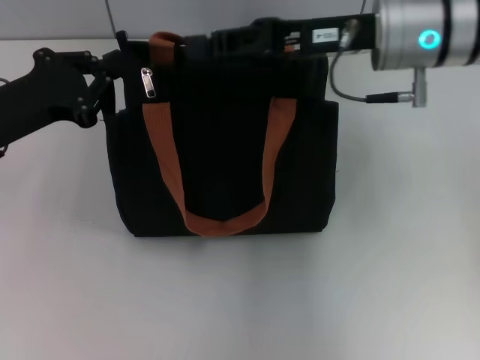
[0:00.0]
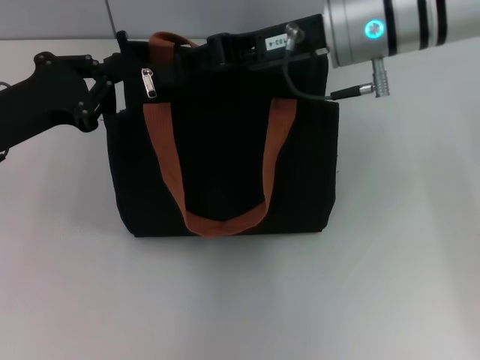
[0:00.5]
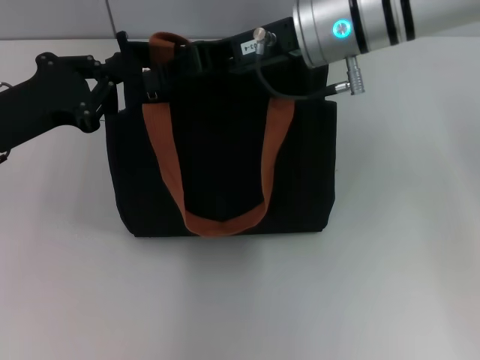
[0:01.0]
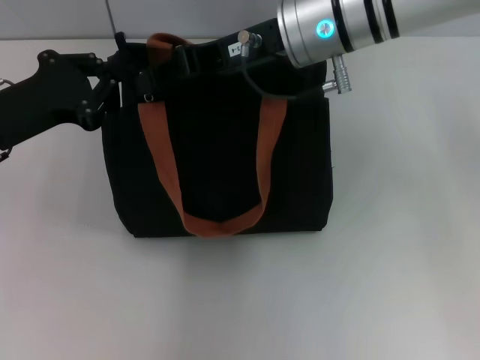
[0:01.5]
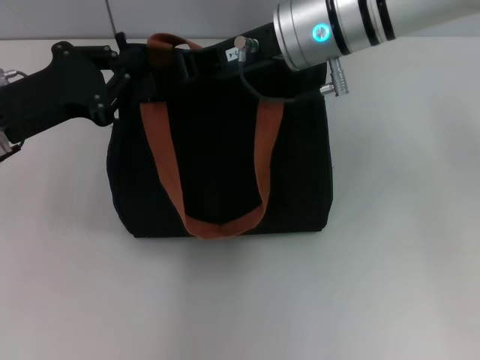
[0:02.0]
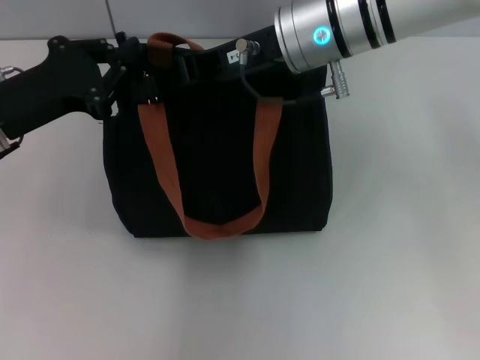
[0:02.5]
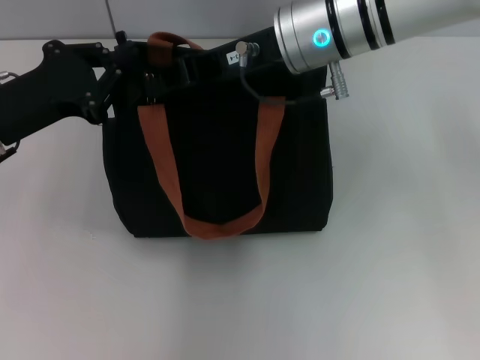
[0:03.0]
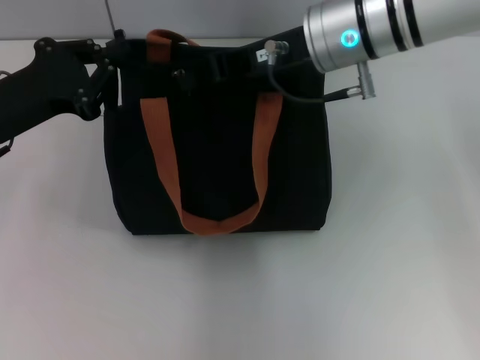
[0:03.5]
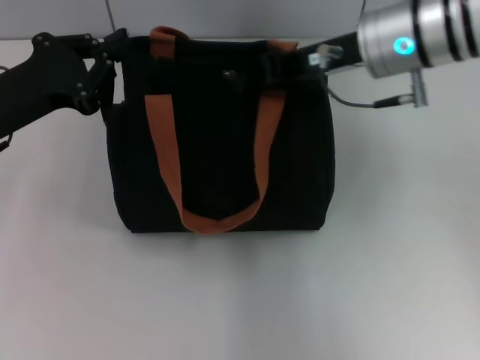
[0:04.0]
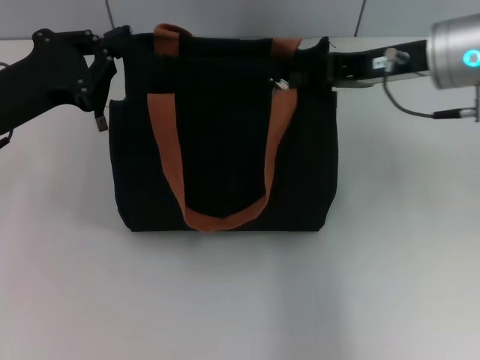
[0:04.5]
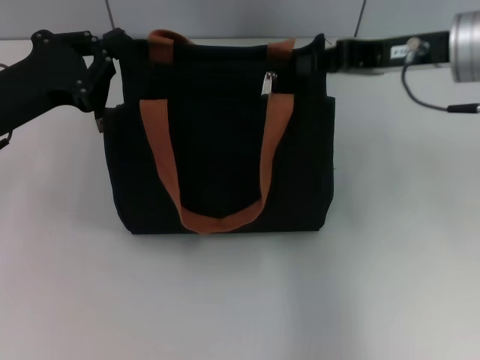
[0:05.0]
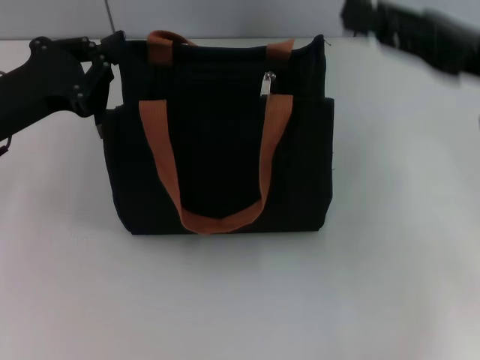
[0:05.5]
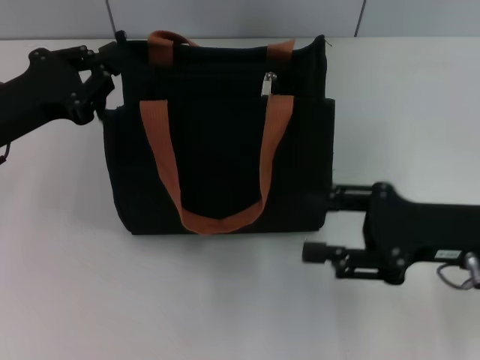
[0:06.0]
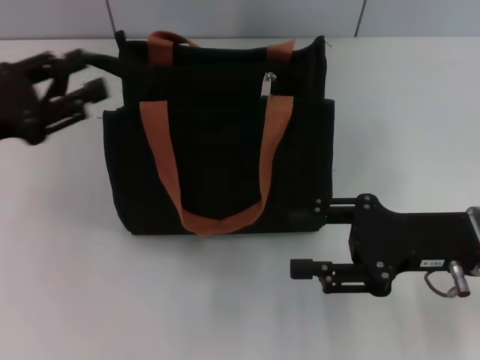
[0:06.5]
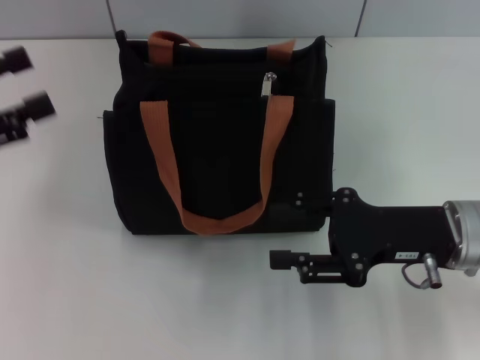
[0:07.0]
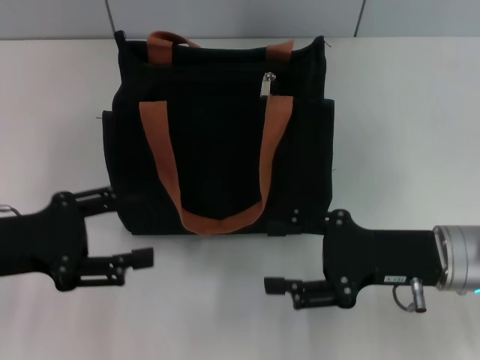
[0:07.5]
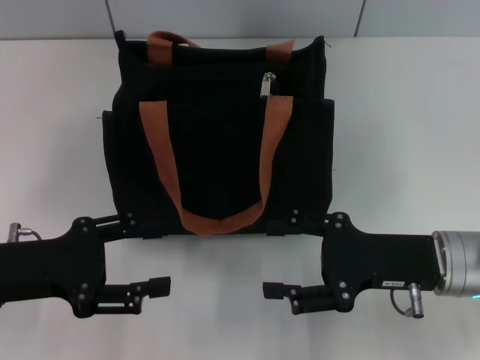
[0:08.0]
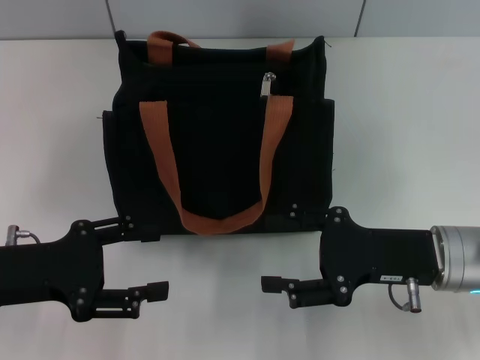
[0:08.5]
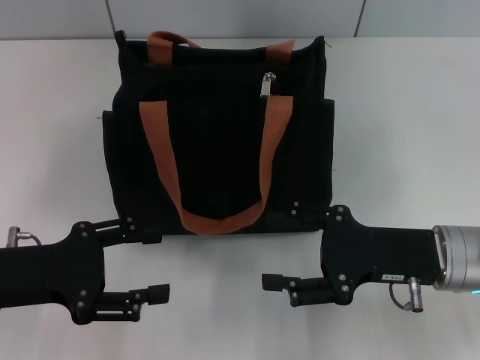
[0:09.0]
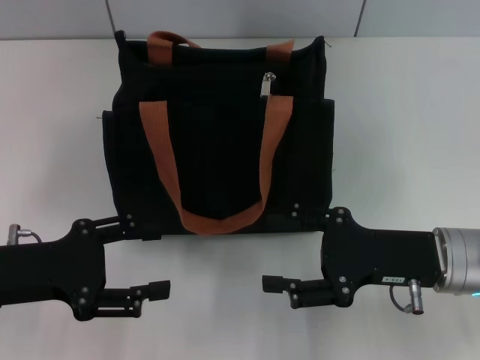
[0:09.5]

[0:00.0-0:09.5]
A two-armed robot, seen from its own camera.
Step, 0:00.0 to 0:04.5: Pull up the zipper with your right hand.
Step, 0:05.0 to 0:06.5: Grab the zipper with your left hand.
0:00.0 to 0:02.0: The right gripper shifts roughly 5 cm to the left.
0:02.0 to 0:04.0: The right gripper moves to the right, about 5 cm.
0:04.0 to 0:05.5: The right gripper is displaced to the right and backward by about 15 cm, and opens.
0:05.5 to 0:07.5: The left gripper goes some 10 cm backward, and opens; the right gripper goes approximately 15 cm downward and backward, and opens its fingers.
0:07.5 to 0:09.5: There are only small adjustments of the grippers.

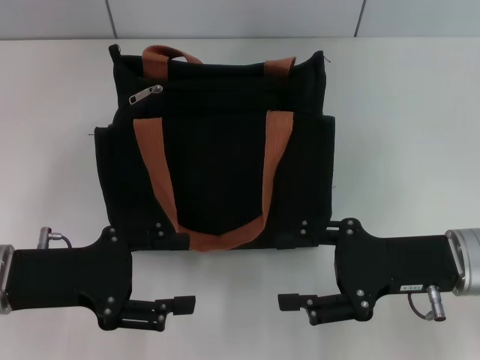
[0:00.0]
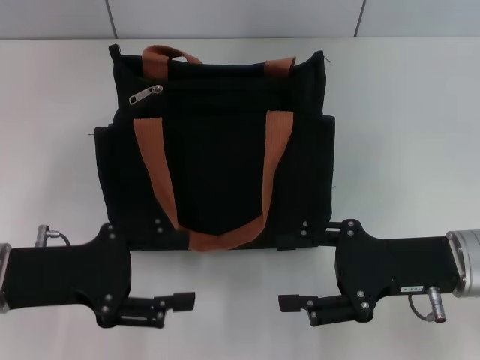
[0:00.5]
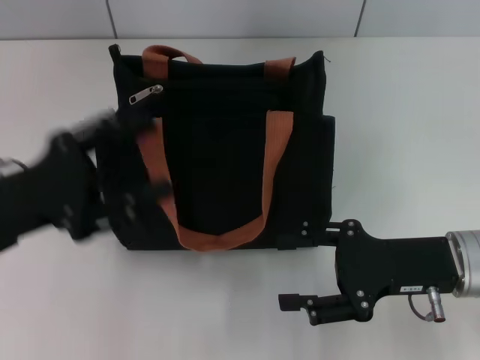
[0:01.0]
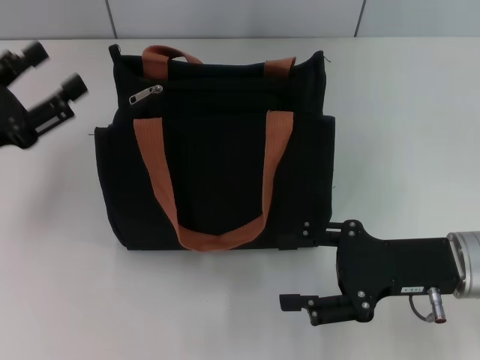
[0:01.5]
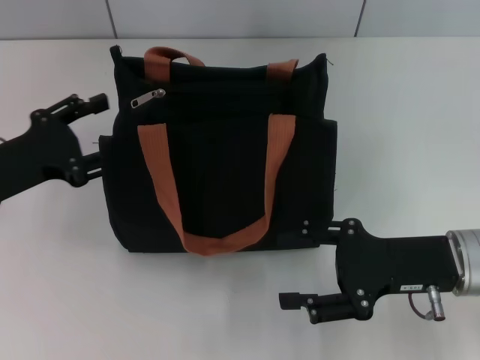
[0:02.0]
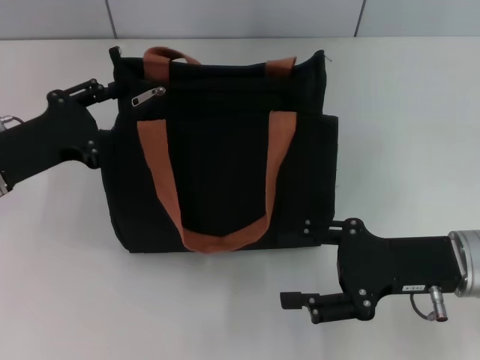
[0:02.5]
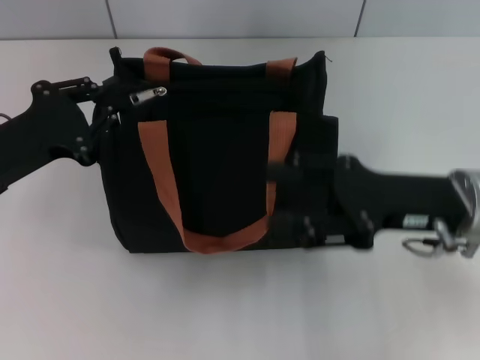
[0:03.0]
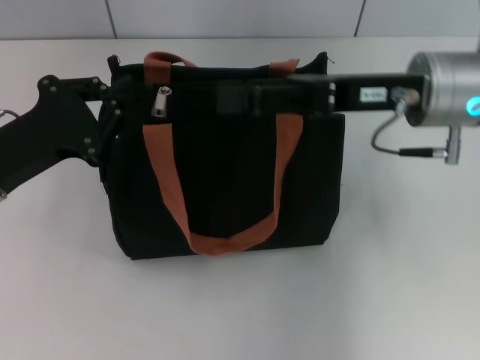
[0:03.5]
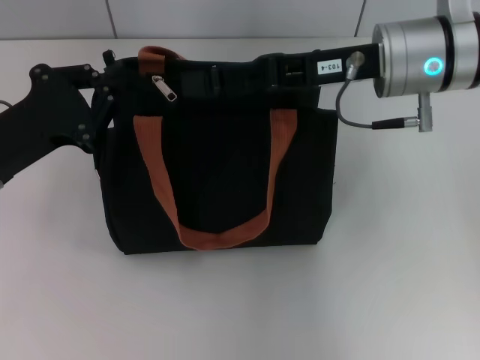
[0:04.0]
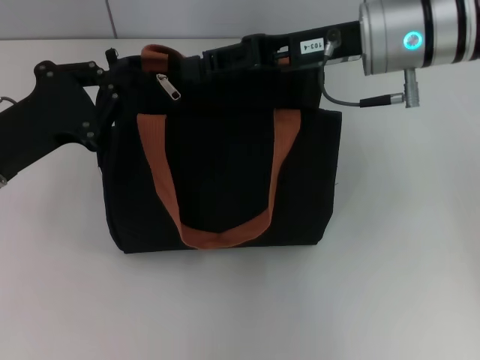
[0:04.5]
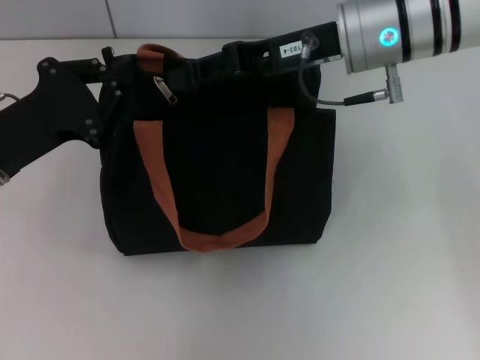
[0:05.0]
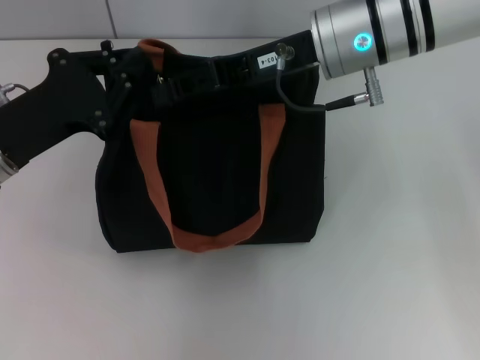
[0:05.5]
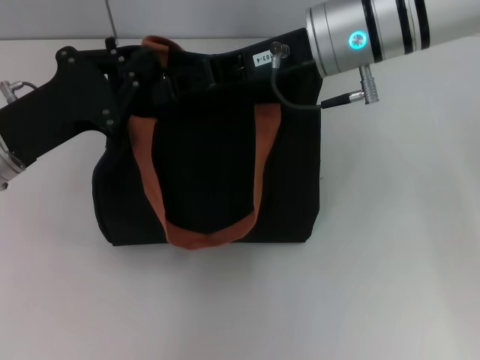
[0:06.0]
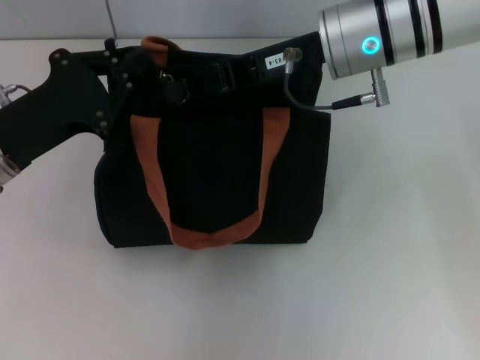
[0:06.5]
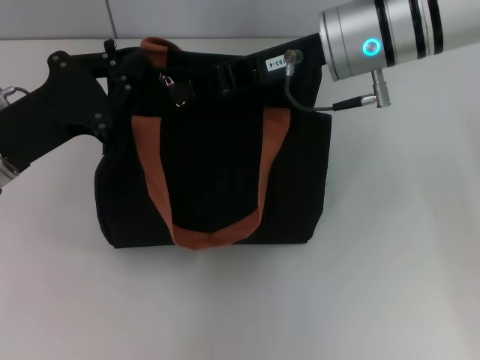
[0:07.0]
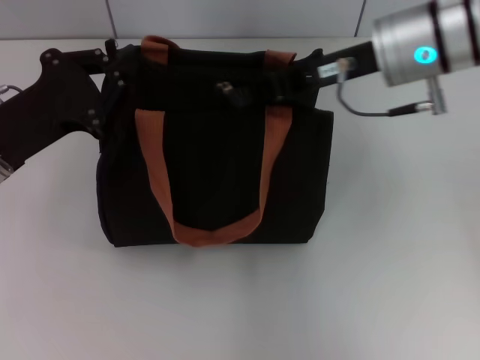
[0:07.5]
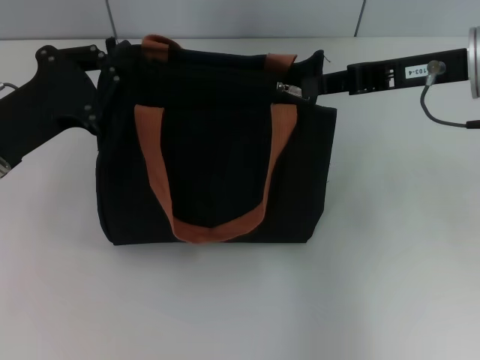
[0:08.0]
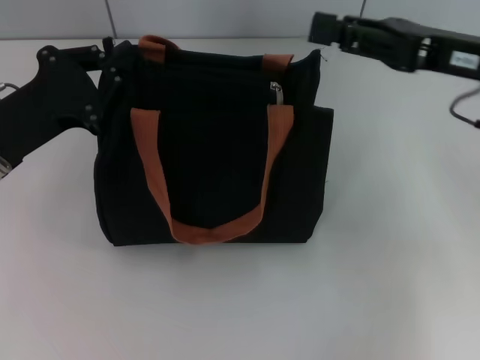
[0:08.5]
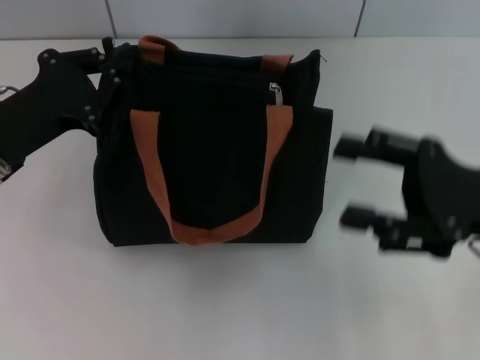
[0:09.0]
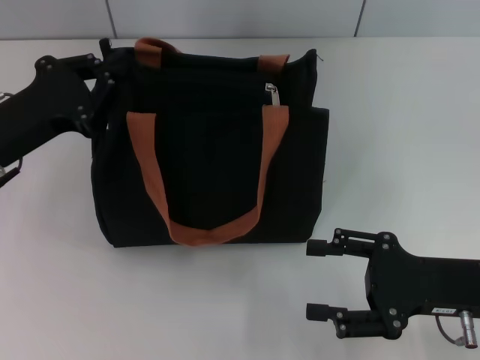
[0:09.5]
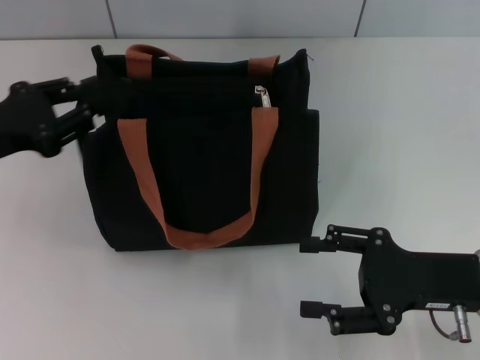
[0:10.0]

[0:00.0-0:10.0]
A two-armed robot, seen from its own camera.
Step, 0:00.0 to 0:08.0: Pull up the zipper with your right hand.
0:00.0 to 0:02.0: The left gripper goes roughly 5 cm forward.
0:02.0 to 0:04.0: The left gripper closes its fingers; the right gripper goes roughly 20 cm upward, forward and to the left.
0:04.0 to 0:06.0: The right gripper shifts roughly 5 cm to the left, and closes its fingers.
0:06.0 to 0:08.0: The right gripper shifts approximately 10 cm to the right.
0:08.0 to 0:10.0: The left gripper shifts by approximately 5 cm; the right gripper heads downward and backward, covering some 20 cm, and opens up.

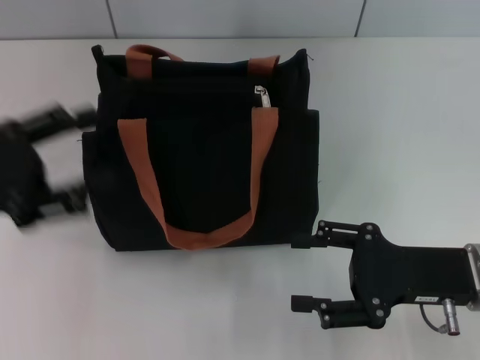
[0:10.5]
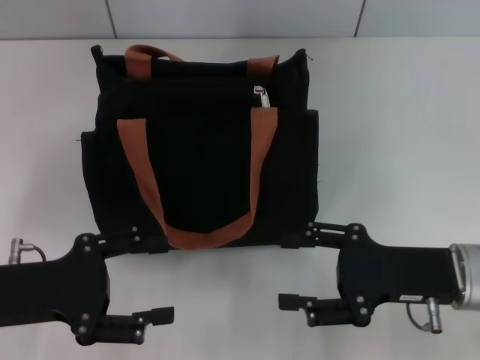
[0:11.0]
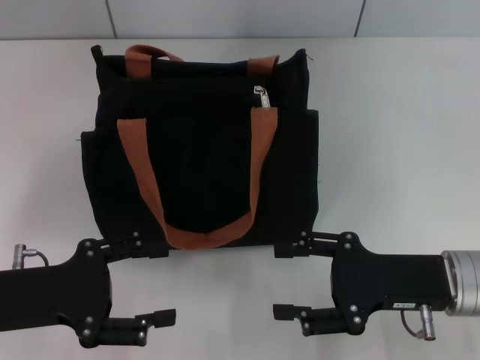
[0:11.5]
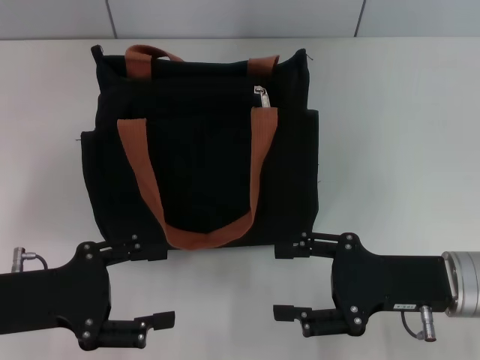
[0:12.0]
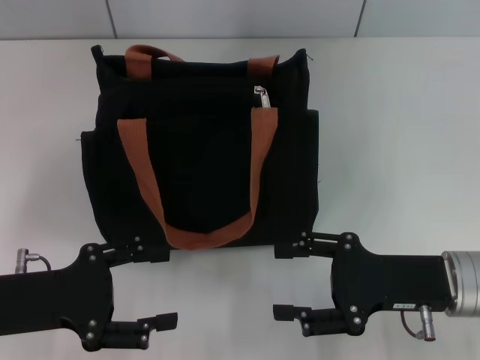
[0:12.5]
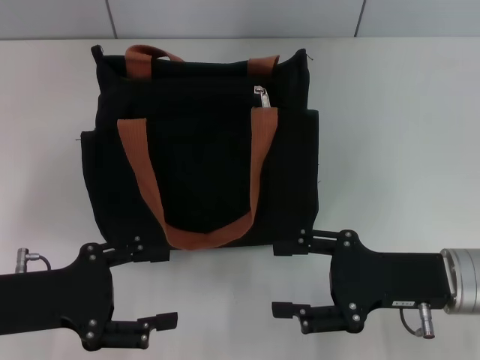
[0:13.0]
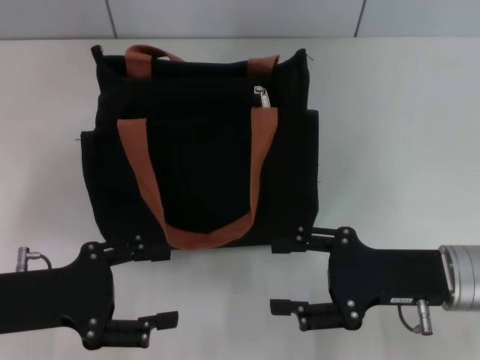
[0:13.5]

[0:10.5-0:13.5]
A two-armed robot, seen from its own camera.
0:10.5 to 0:12.0: The left gripper moves downward, approximately 5 cm.
0:12.0 to 0:13.5: Both grippers stay about where they are.

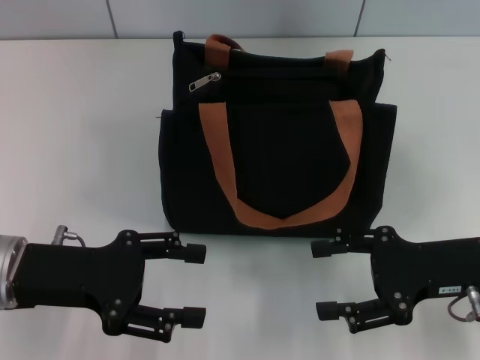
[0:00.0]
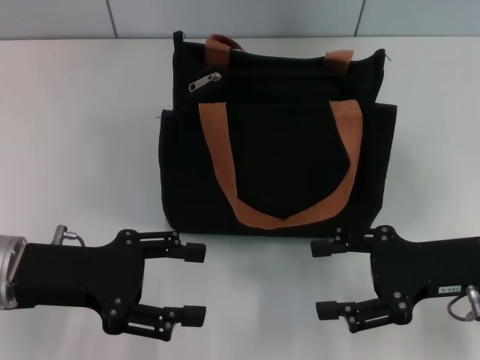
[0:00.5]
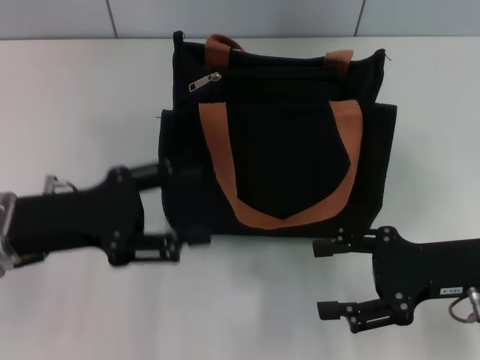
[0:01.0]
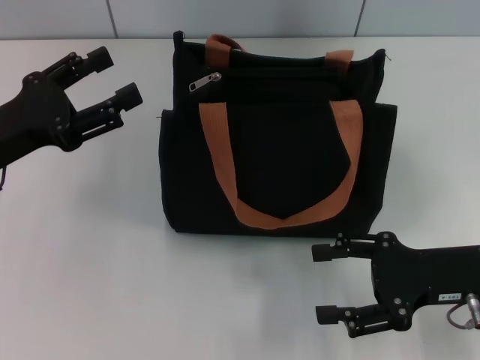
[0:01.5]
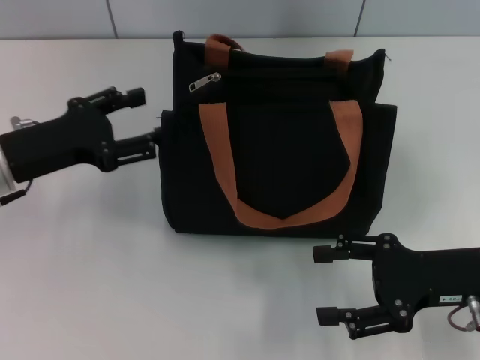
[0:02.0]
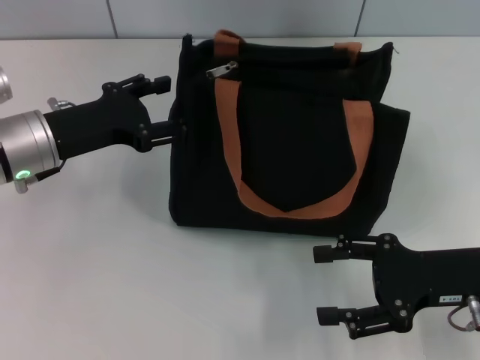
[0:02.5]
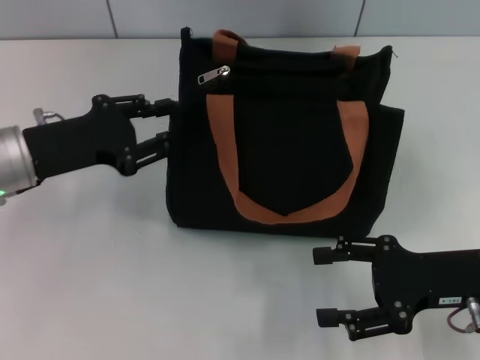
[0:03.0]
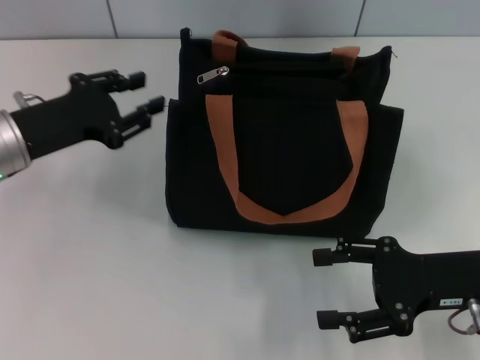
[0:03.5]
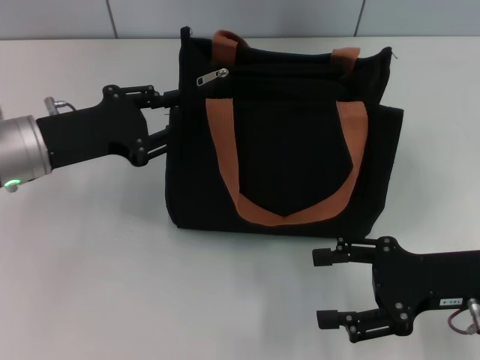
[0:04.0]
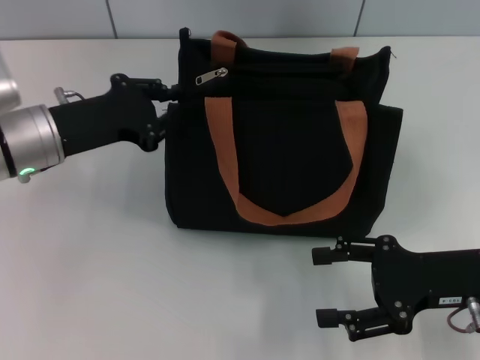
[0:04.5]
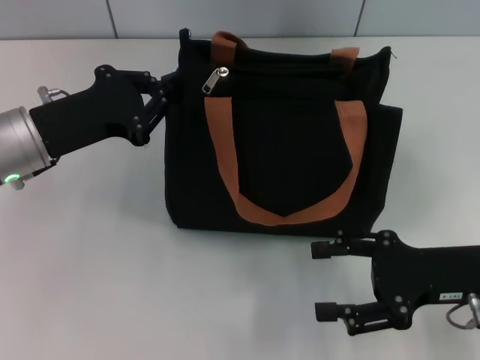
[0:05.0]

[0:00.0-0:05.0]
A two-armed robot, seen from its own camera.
0:00.0 to 0:02.5: The left gripper is displaced forward by roughly 10 cm.
0:02.5 to 0:05.0: The left gripper closes.
